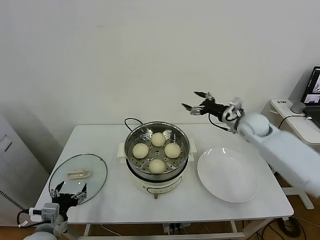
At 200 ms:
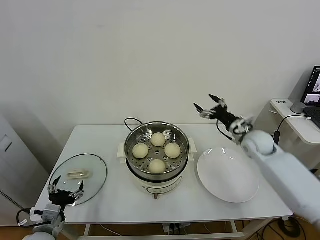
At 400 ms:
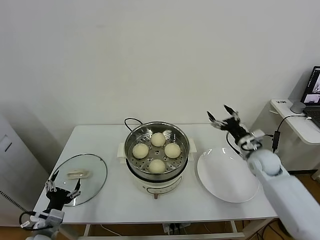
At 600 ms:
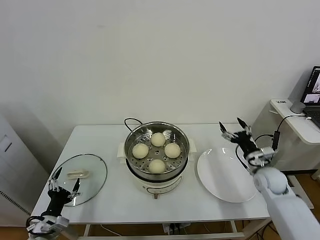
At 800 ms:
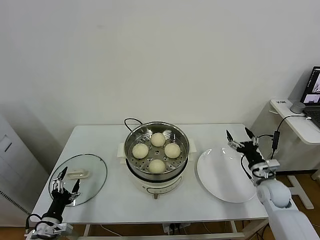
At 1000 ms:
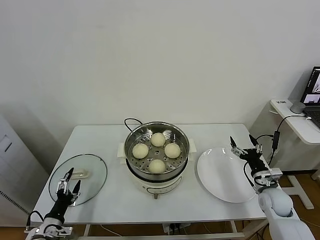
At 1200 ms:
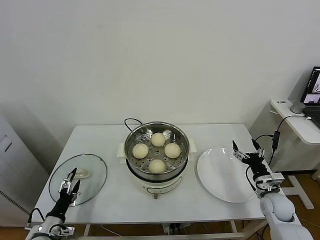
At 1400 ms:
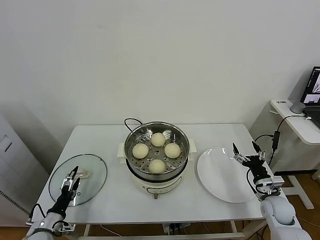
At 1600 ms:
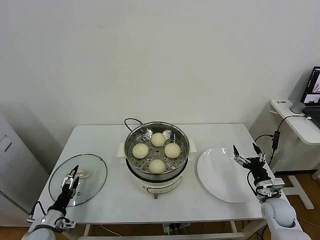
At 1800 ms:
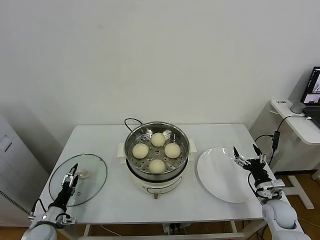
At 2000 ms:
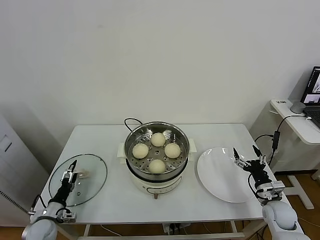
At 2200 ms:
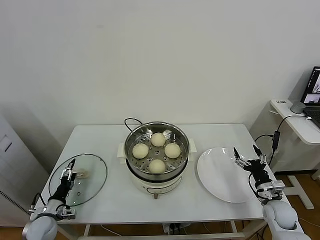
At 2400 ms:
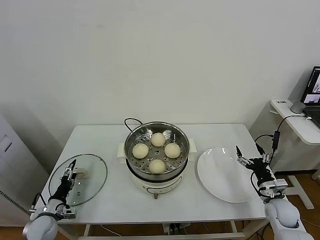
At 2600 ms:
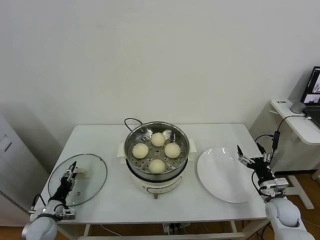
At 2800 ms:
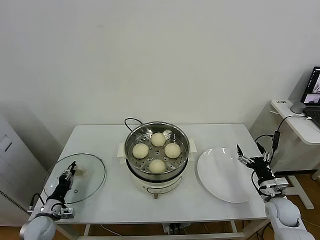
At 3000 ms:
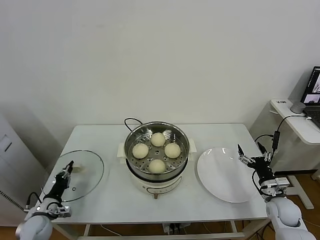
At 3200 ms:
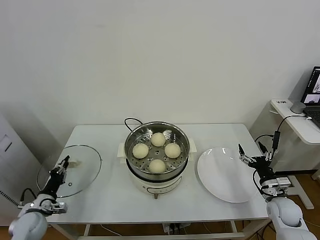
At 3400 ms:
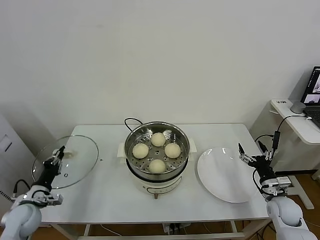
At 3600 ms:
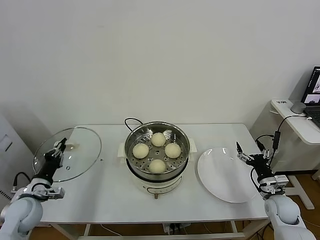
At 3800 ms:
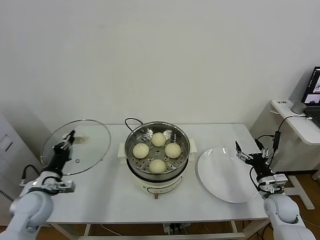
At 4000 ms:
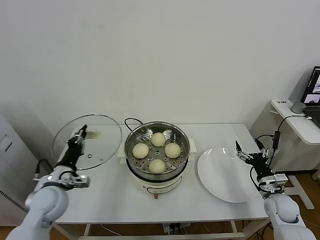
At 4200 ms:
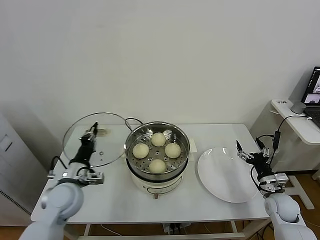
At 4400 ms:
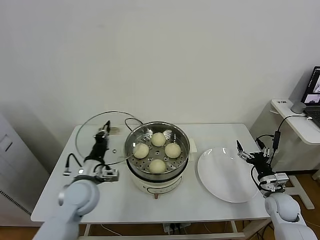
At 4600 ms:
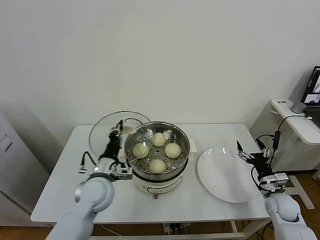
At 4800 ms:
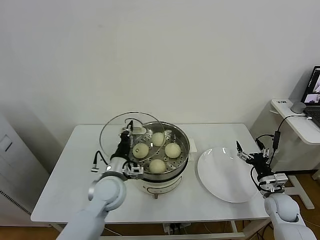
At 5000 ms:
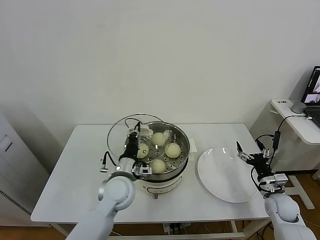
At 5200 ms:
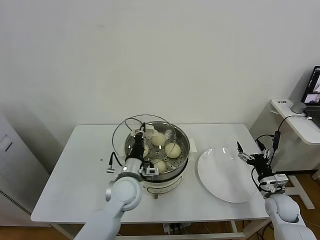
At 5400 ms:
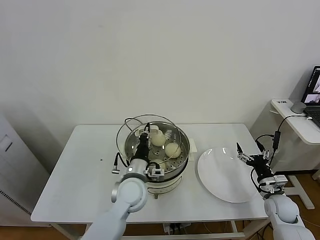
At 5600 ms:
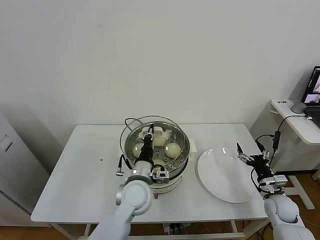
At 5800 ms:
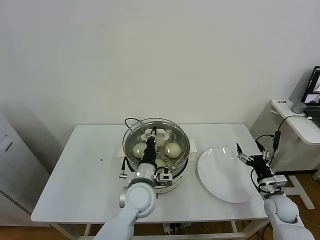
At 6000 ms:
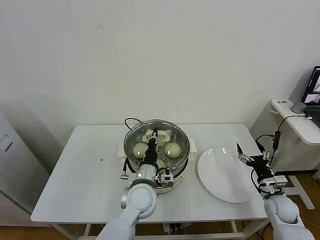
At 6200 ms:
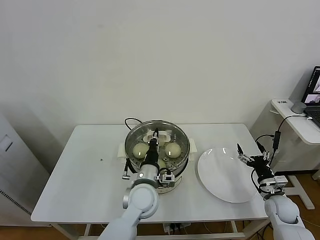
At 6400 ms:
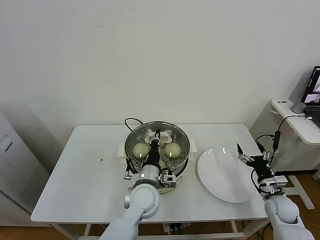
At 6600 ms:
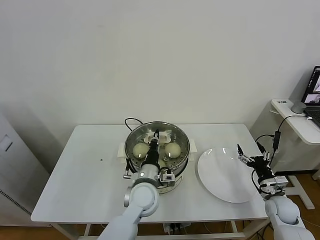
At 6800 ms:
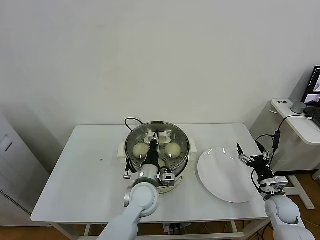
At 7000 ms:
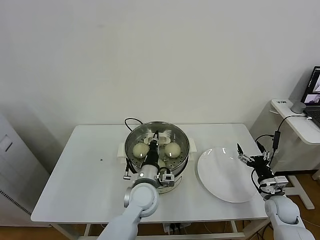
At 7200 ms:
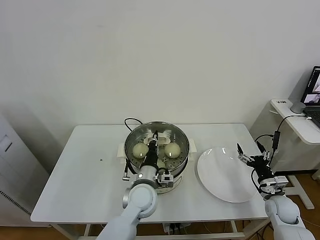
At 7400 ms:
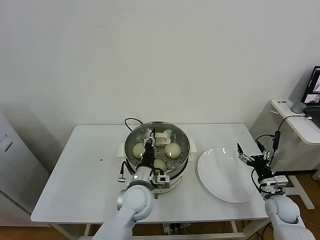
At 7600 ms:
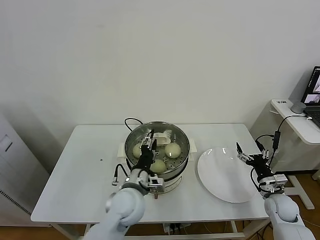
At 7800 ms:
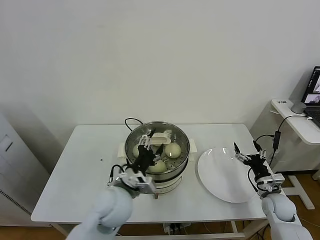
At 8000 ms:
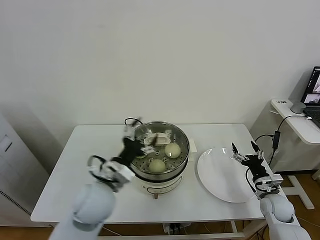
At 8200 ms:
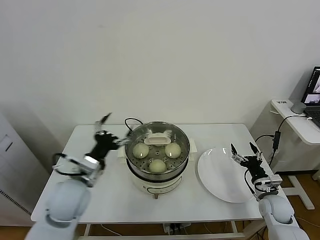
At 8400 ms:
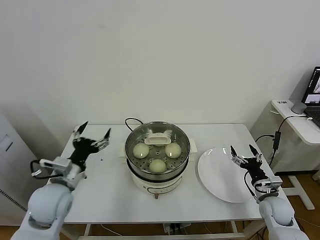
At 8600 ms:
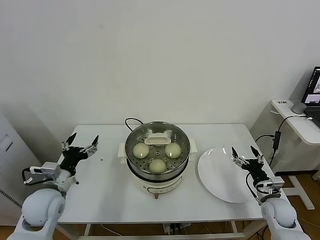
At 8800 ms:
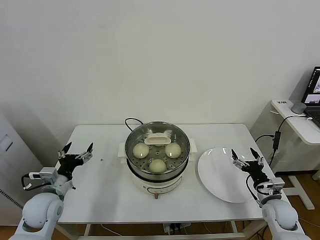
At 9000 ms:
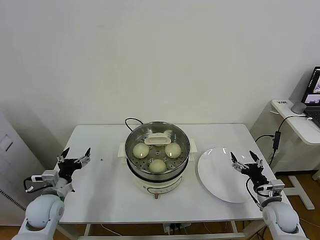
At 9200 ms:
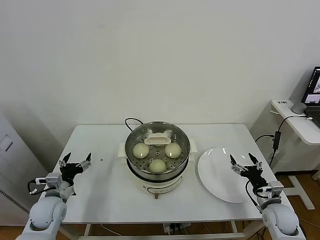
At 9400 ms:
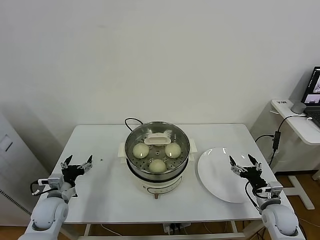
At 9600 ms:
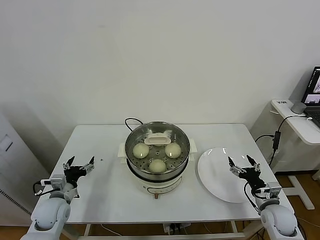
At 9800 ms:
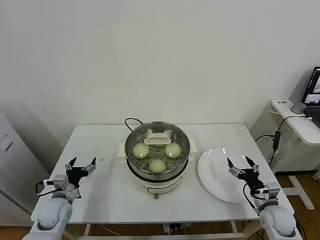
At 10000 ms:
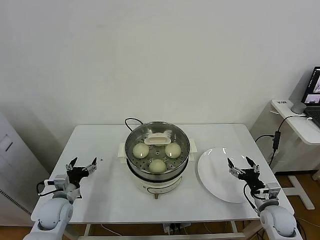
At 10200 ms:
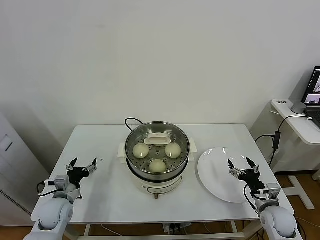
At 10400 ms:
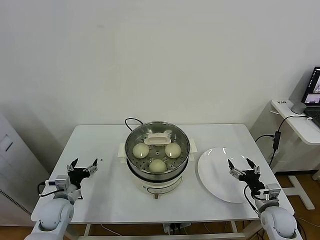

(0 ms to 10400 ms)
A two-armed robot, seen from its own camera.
Task of the whole recording: take steamed baozi put them in steamer.
Step, 0 ms - 3000 ms: Grasp the pot lid with left gripper.
Step, 3200 ms - 7800 ms: Place the pot lid on the steamer with left gripper.
0 ms - 1400 ms: The left gripper moves downward and to the left, some 10 cm. The right gripper travels downward and backward by some 30 cm.
1400 ms - 3000 ms: The left gripper moves forward, approximately 5 cm, and closes up.
3000 ms - 4400 ms: The left gripper is displaced to the right and upward by approximately 25 cm.
4400 ms - 6000 ms: The left gripper is displaced to the right by roughly 20 cm.
6000 ms - 7400 ms: The grippers make only small movements.
7400 ms - 9000 ms: The left gripper heads to the left, covering approximately 30 cm, and opens its fingers.
9000 ms - 10400 ms: The left gripper goes some 5 cm downward.
